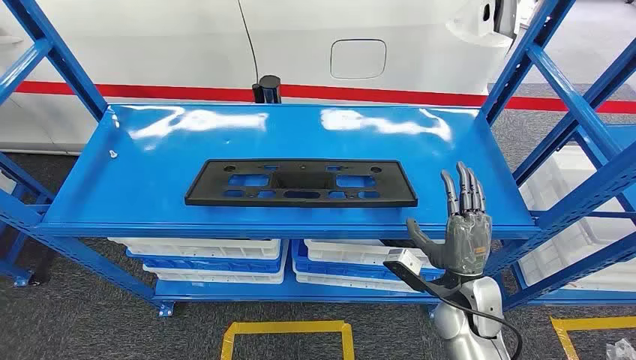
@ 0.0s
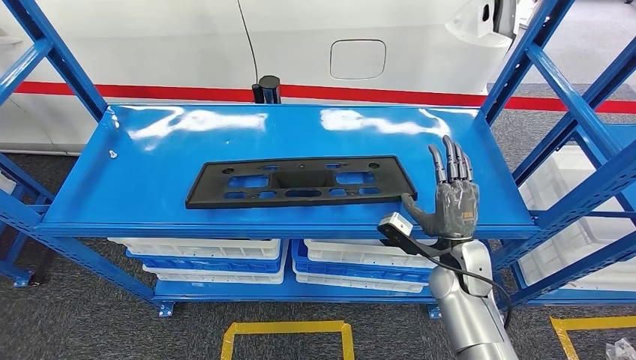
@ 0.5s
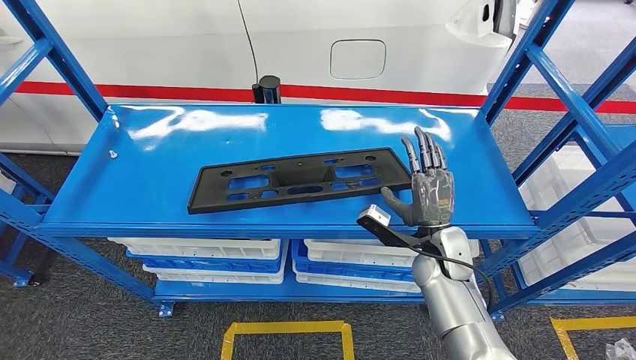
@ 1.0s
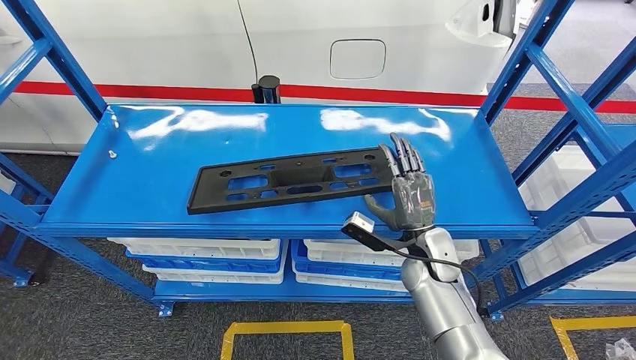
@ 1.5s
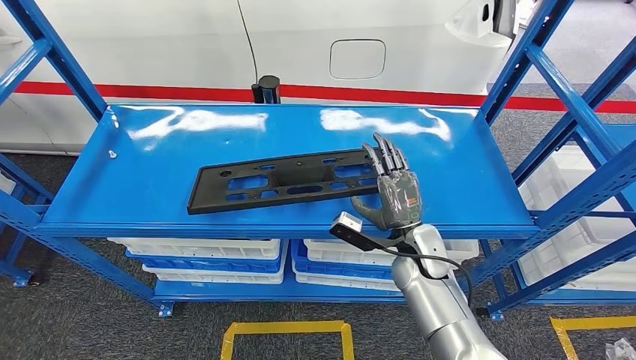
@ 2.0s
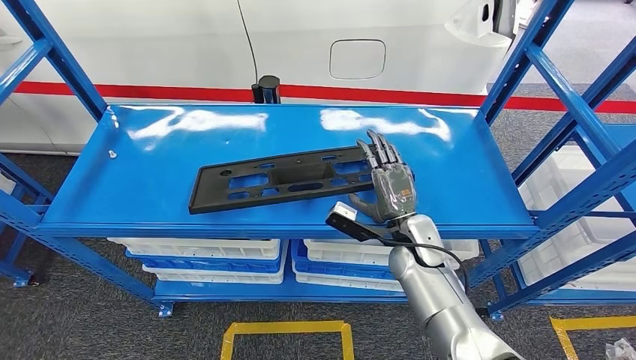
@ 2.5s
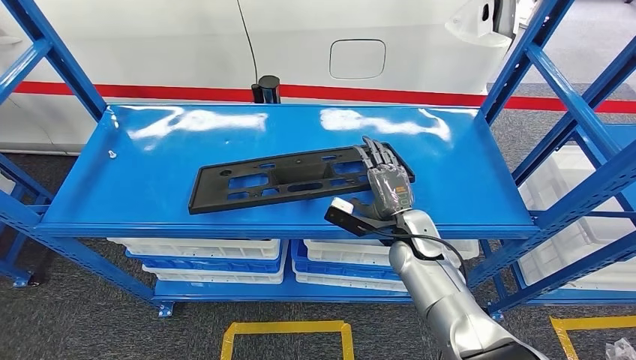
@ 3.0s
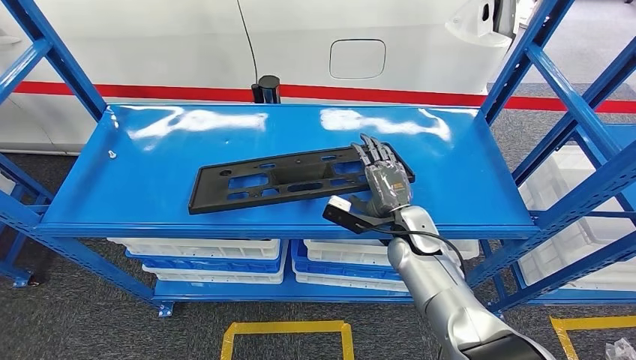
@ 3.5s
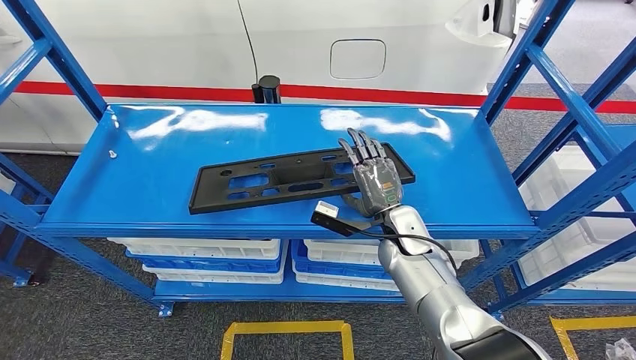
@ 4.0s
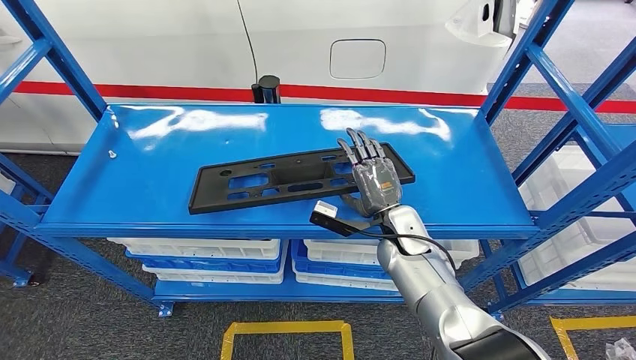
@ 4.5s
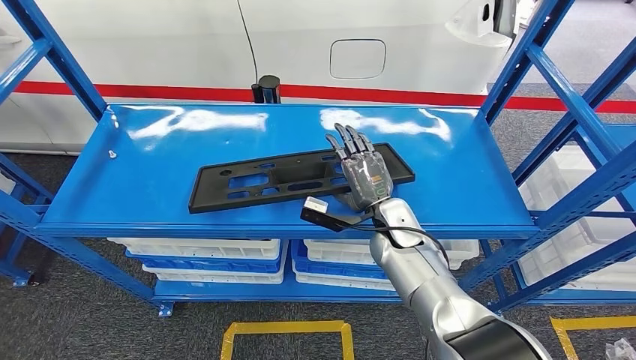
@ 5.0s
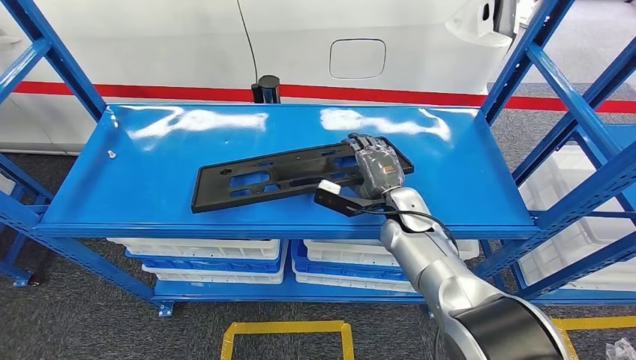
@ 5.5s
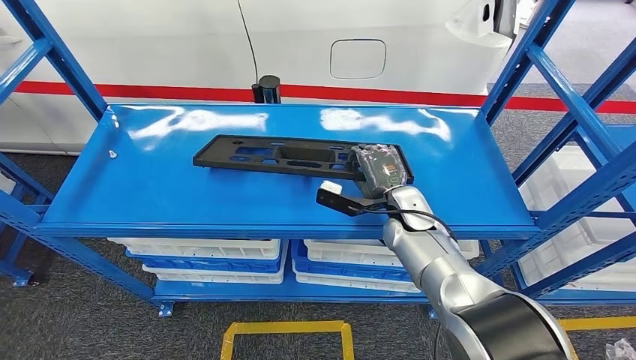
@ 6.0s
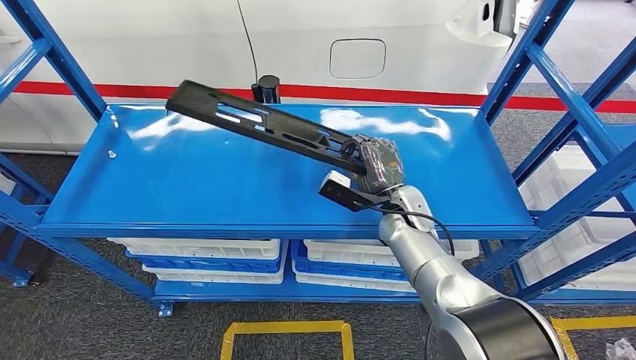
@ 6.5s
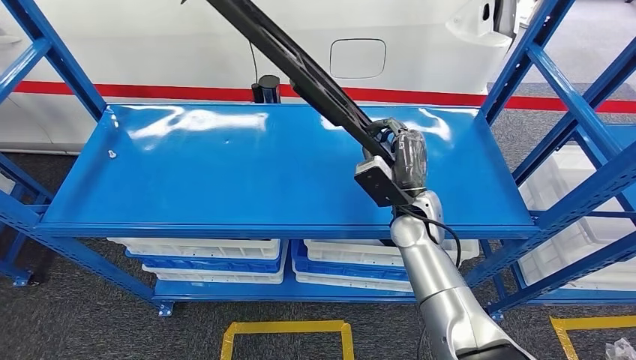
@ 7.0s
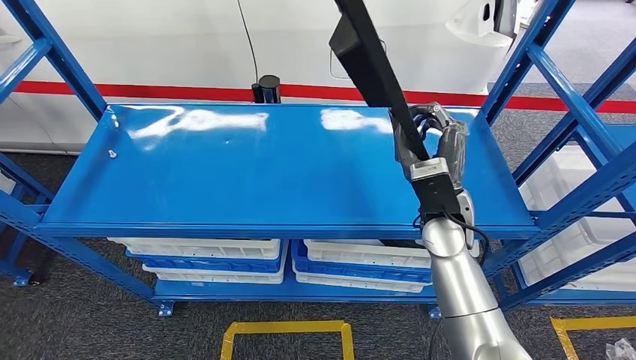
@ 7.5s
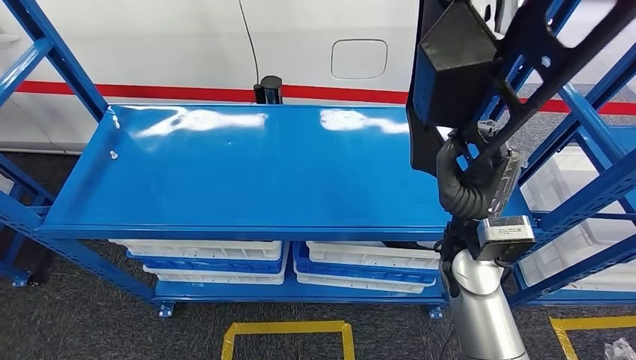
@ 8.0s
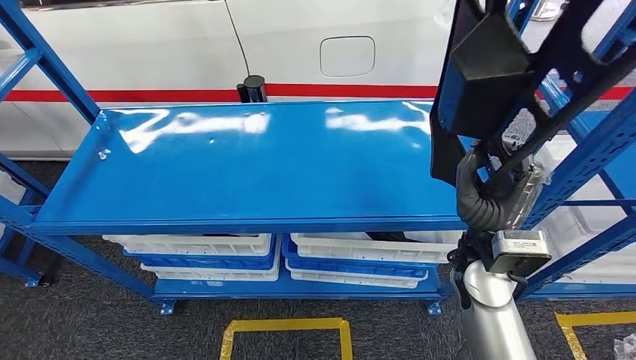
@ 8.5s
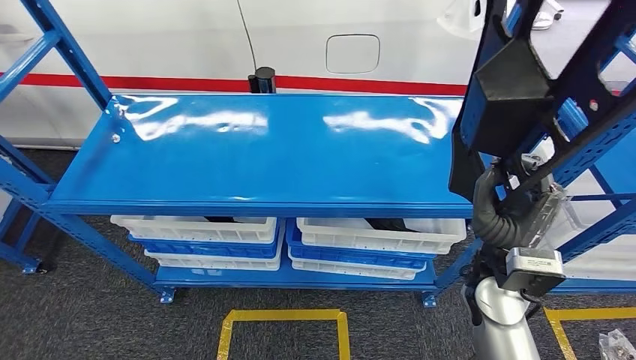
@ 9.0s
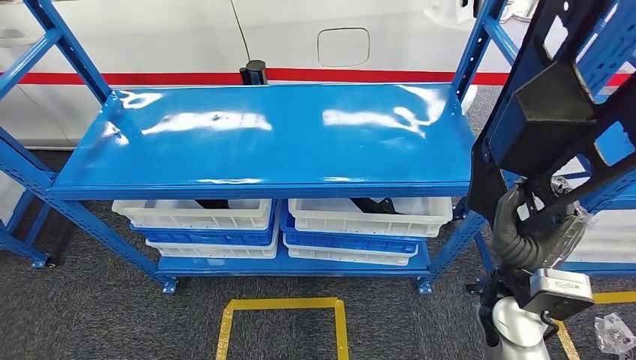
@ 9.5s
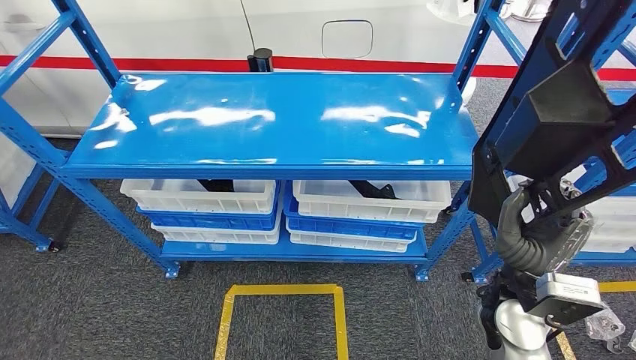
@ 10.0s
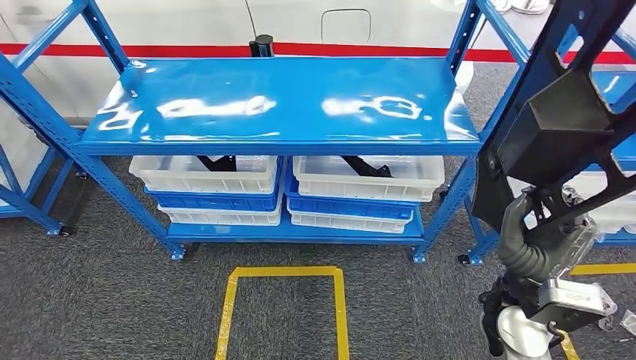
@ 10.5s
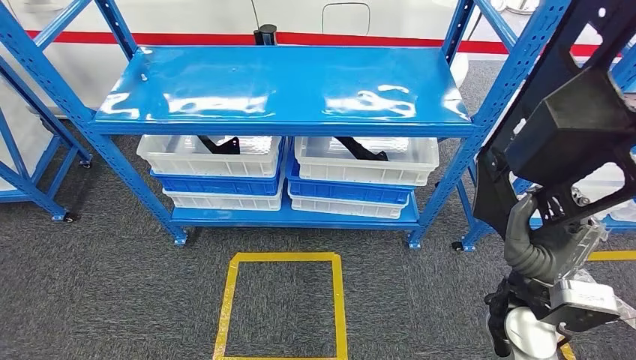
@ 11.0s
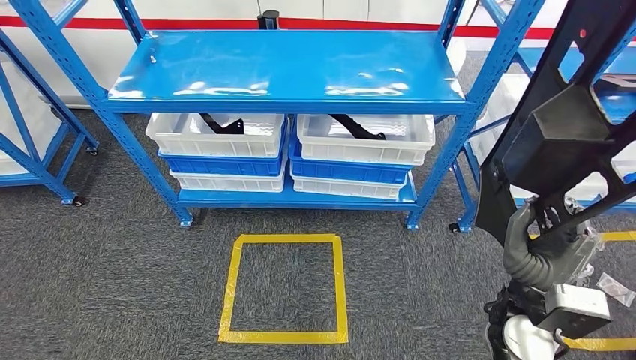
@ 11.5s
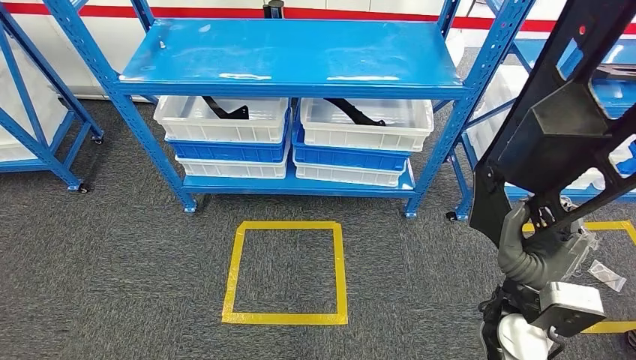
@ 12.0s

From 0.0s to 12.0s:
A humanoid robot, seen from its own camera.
Step, from 0.0s to 8.5s: Pick up the large material from the shelf.
From 2.0s to 4.0s: The hands move only a little.
From 4.0s to 6.0s: There are only small adjustments of the hands.

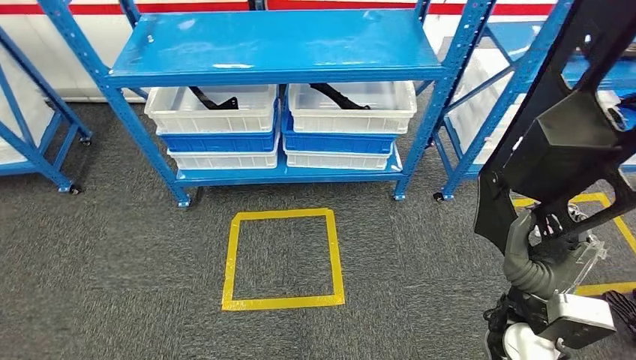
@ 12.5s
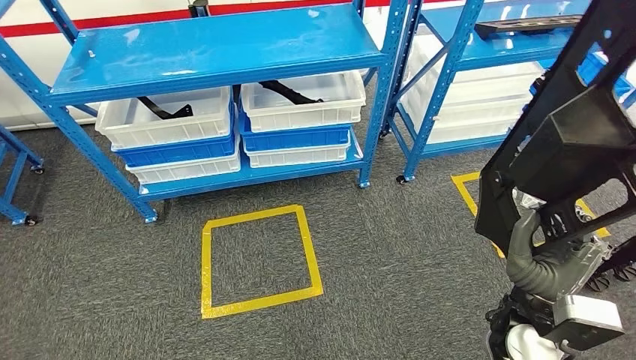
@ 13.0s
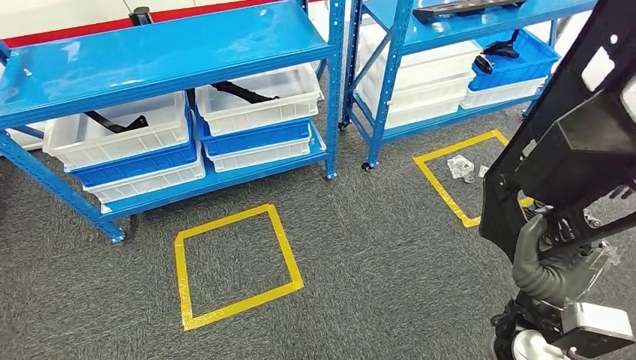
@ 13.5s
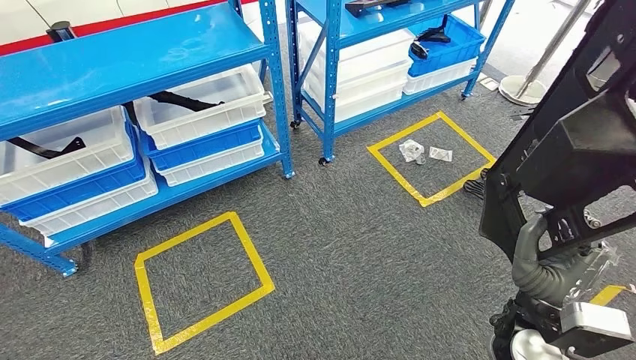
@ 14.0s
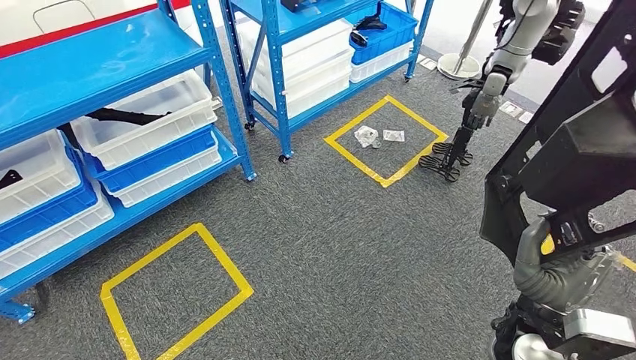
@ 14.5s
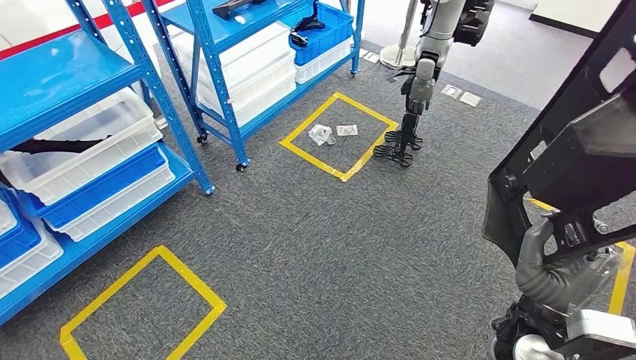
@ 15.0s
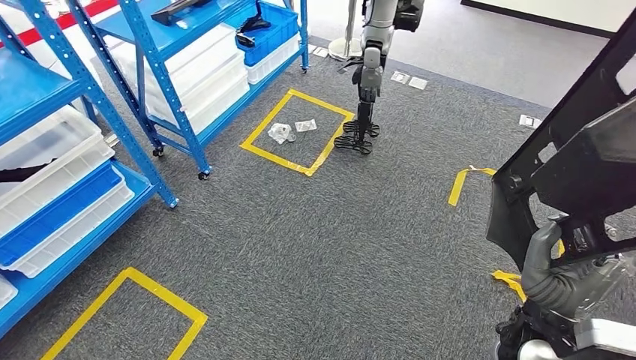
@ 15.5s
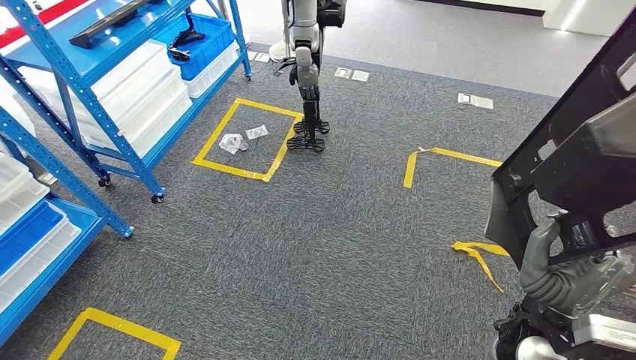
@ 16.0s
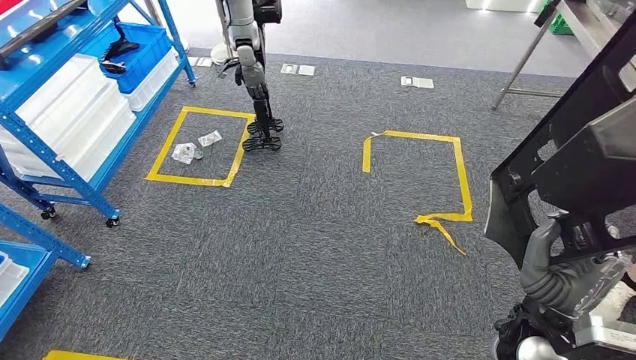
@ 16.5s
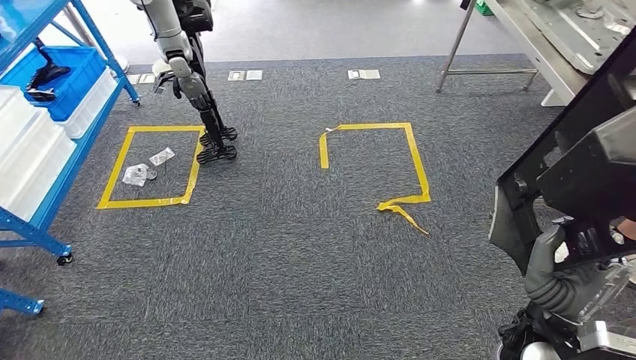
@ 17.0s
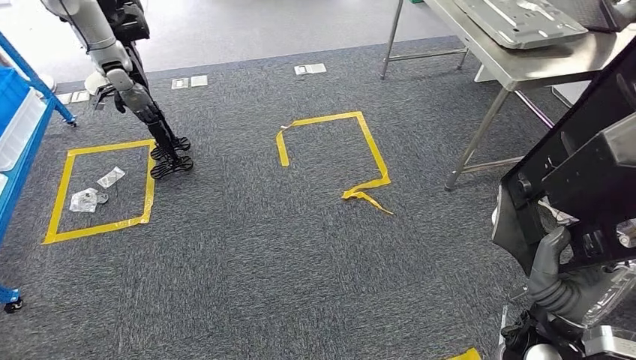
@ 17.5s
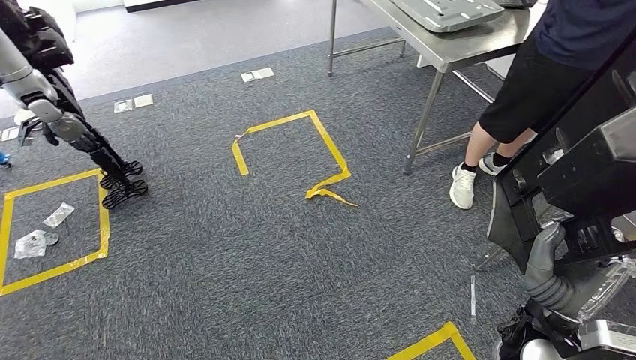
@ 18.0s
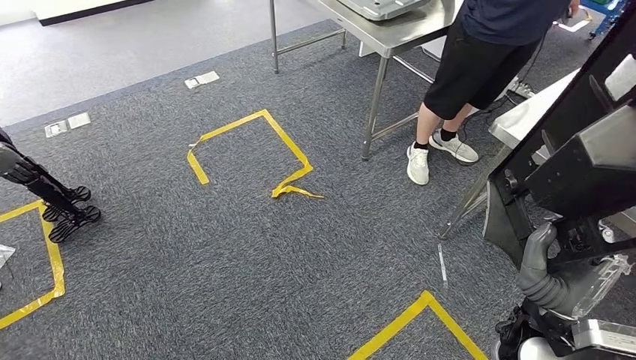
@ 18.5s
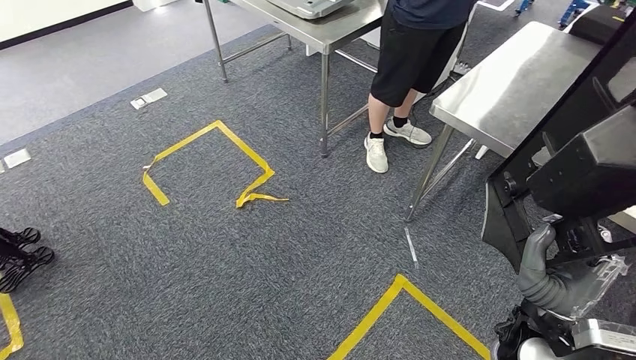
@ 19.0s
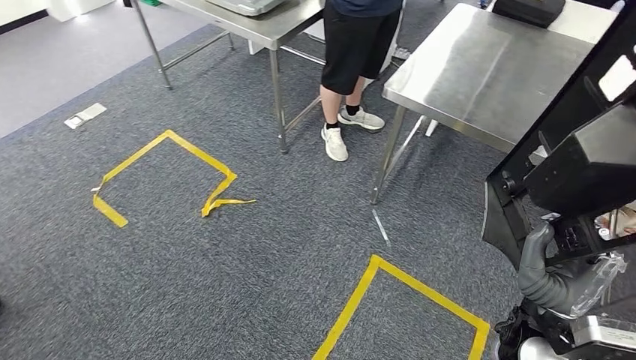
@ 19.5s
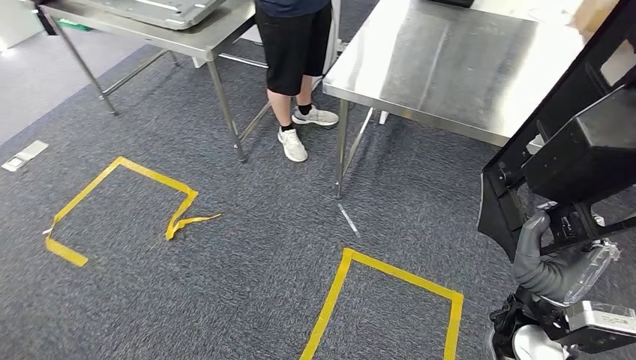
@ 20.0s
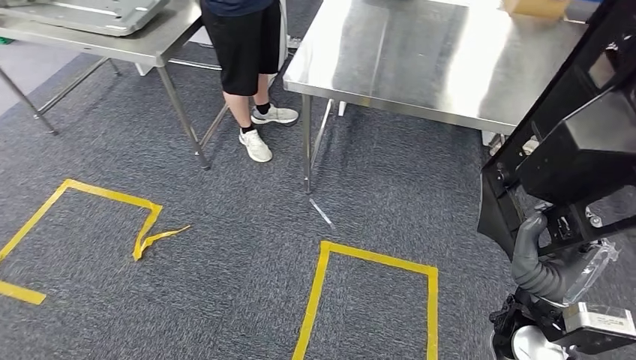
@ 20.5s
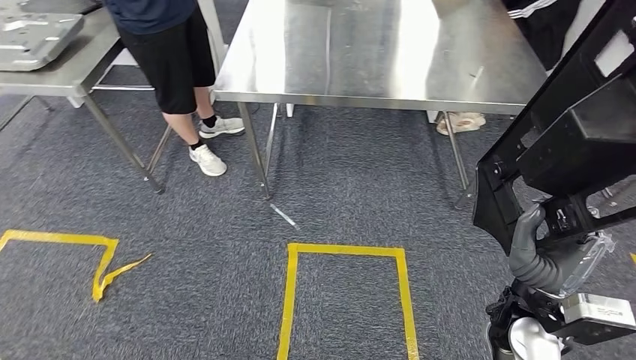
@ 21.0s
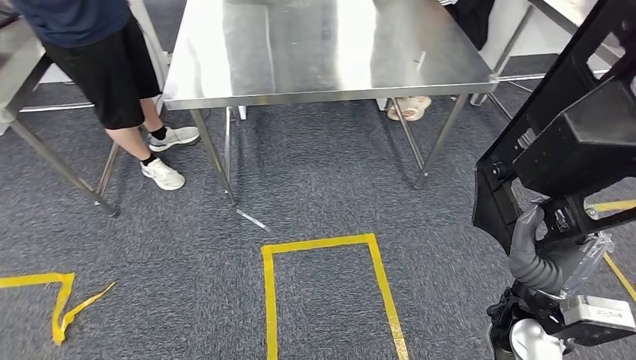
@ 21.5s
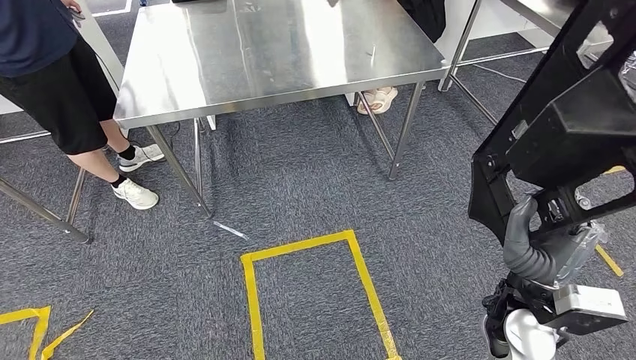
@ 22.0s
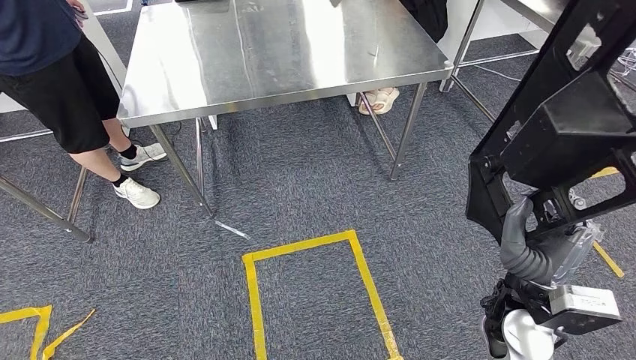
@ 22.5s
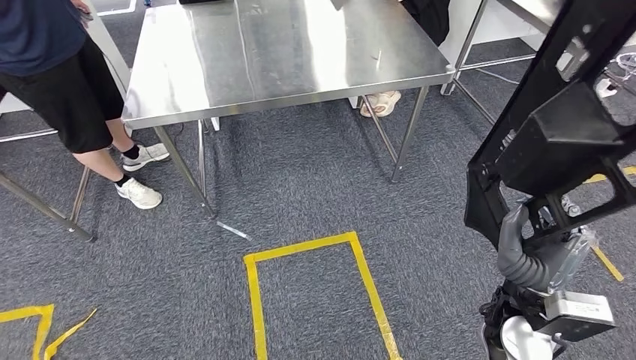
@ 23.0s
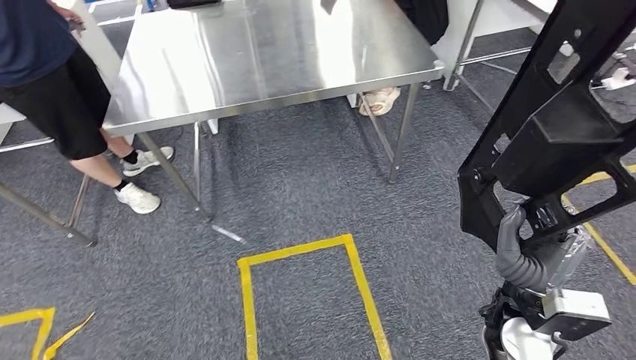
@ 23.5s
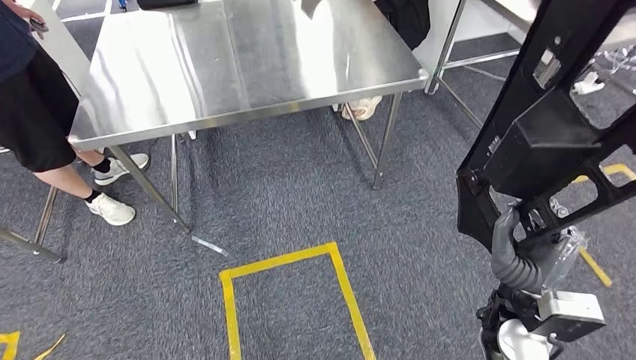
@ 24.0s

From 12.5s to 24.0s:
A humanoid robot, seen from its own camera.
Step, from 12.5s to 23.5s: Move the large material to the workbench.